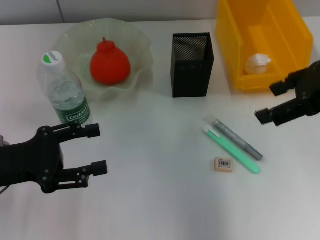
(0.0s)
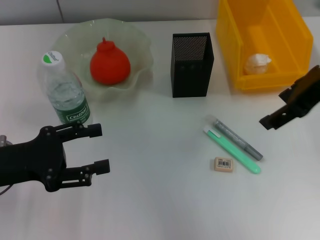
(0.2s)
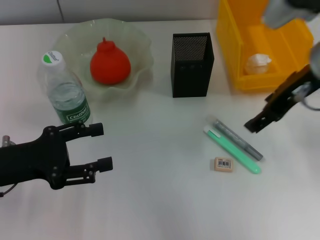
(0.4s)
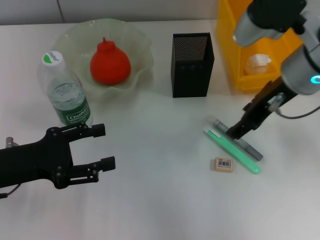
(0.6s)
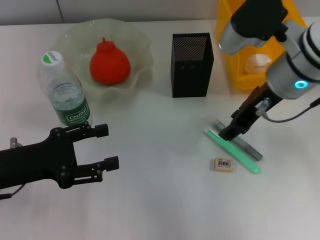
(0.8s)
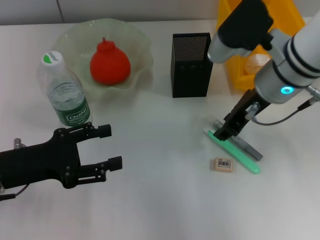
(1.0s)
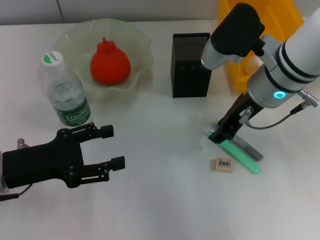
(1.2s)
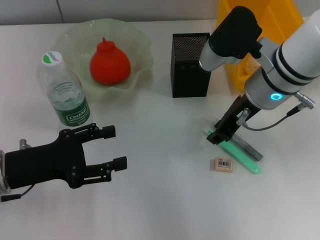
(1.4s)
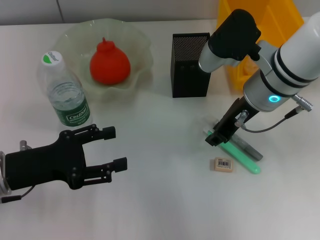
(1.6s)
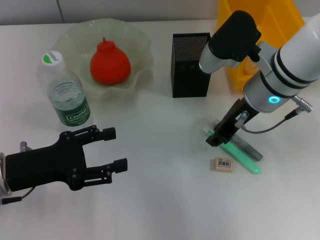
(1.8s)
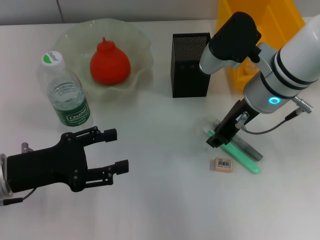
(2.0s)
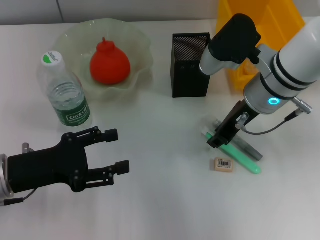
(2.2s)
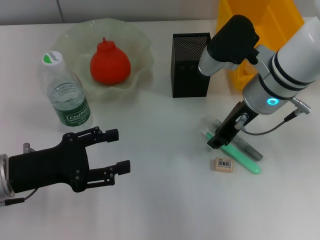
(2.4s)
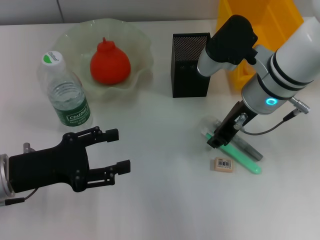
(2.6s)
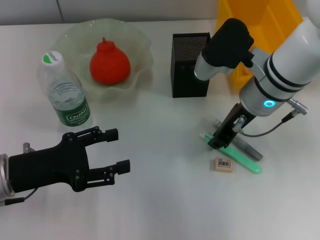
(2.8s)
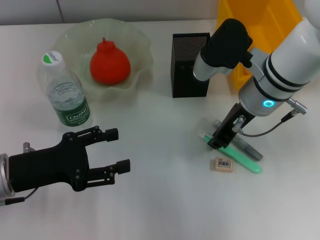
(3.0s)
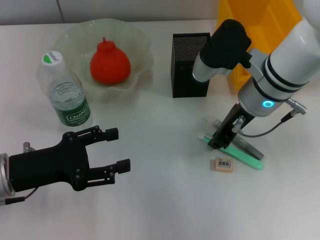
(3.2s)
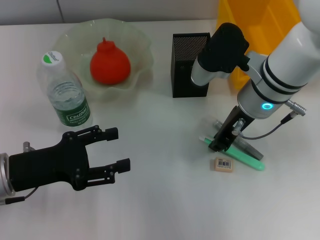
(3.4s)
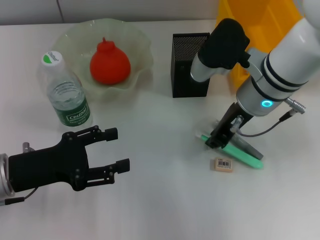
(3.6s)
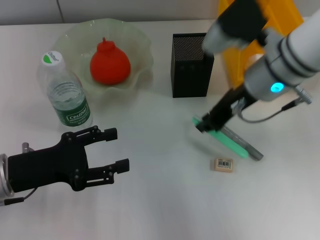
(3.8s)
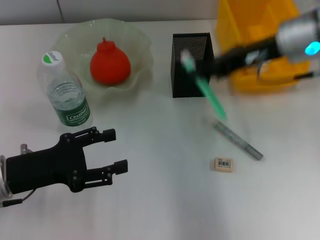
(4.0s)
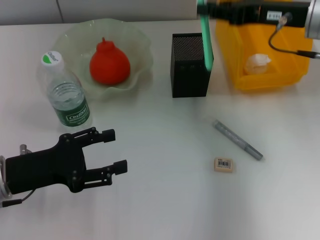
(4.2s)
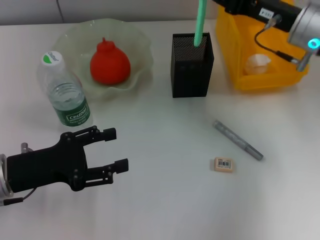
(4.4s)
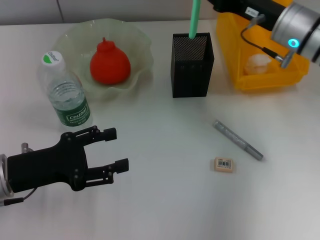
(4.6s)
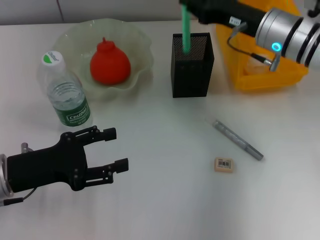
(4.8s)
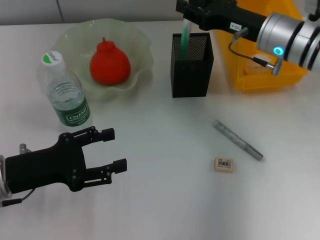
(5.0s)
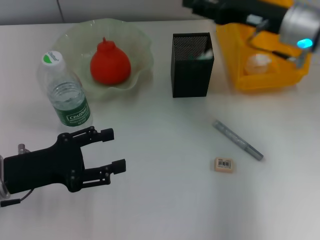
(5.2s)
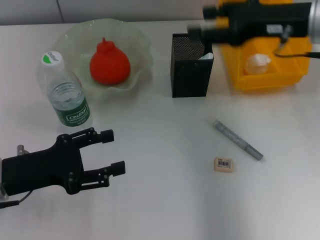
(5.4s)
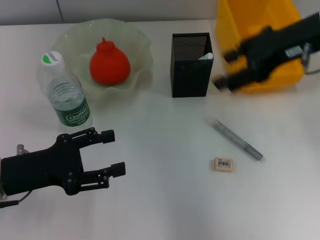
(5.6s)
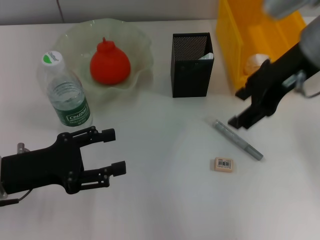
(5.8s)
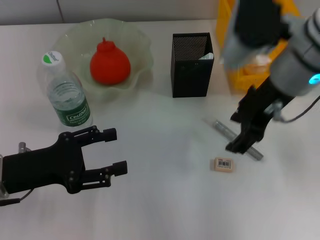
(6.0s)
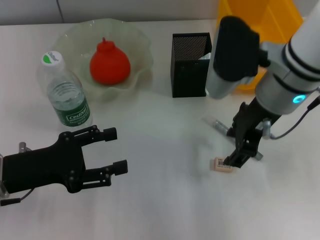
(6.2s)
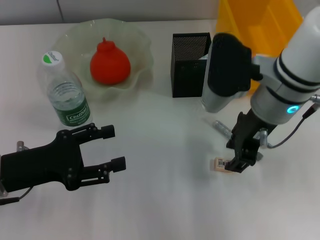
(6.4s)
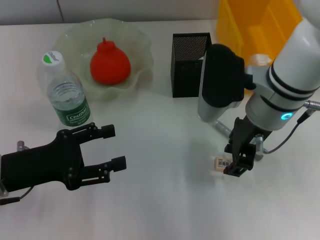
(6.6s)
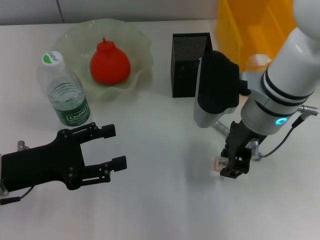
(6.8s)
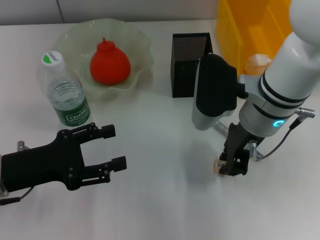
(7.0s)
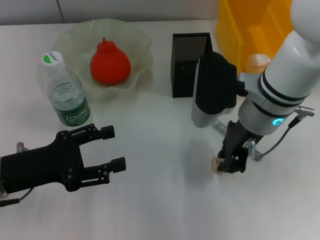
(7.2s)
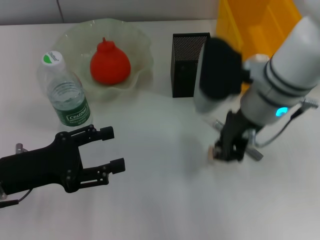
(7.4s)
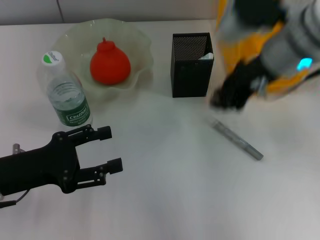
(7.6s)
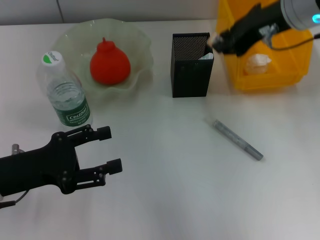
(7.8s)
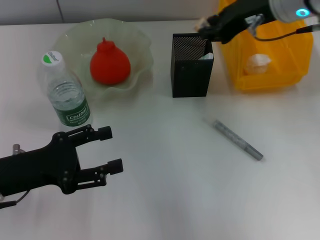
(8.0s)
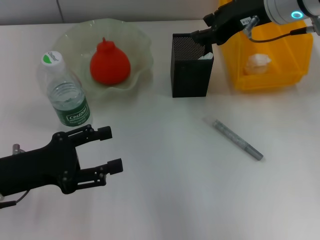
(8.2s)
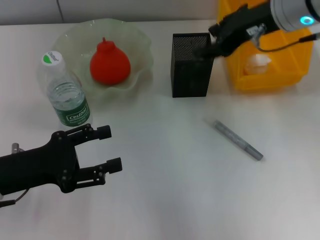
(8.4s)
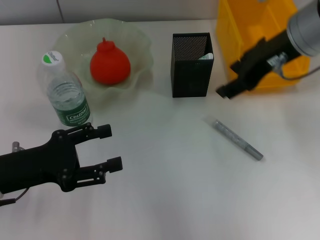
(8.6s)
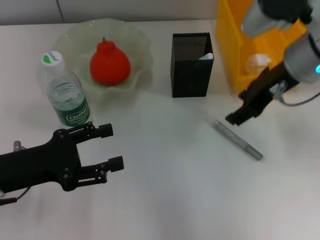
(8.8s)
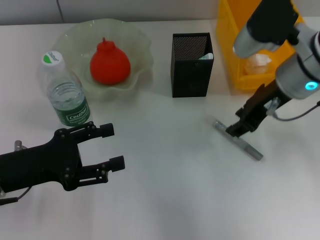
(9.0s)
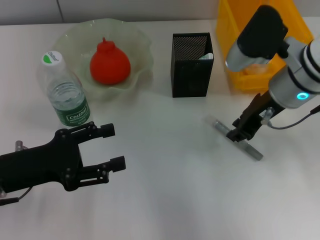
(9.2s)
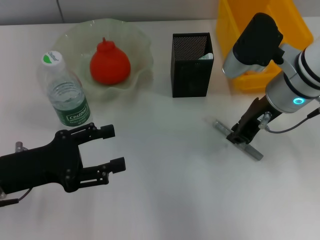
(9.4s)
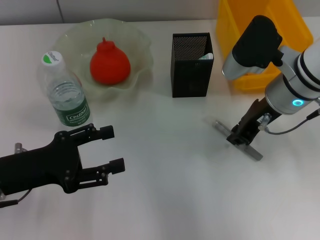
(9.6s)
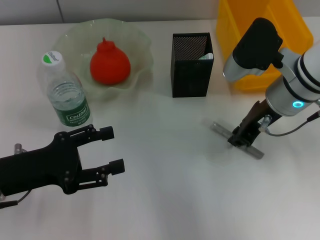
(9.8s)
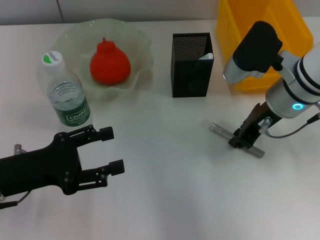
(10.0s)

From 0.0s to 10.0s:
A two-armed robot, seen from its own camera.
Step, from 0.0s to 3.2s: Grab the blue utility knife with the right hand.
Step, from 3.4s to 4.8s: Place the blue utility knife into the pen holder with the right hand.
Step, from 5.0s to 6.8s: Grab the eraser with the right hand.
Step, from 7.2s to 8.0s: Put the eraser into the pen holder with the right hand.
From 0.0s to 1.4s: The right gripper shifts some 15 cm to the left, downward and forward, and closes.
From 1.4s to 2.8s: There are only small adjustments of the grippers.
From 2.8s to 4.2s: The right gripper goes approximately 10 cm to the right and upward.
From 4.2s to 5.8s: The right gripper moves some 5 cm, and opens its fingers.
From 5.8s to 7.2s: The right gripper heads downward and to the left, covering approximately 10 cm, and closes.
From 7.2s to 8.6s: The right gripper goes some 10 cm upward and to the right, and opens up.
From 8.6s to 10.0s: The right gripper goes some 10 cm downward, and closes.

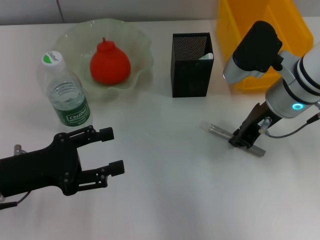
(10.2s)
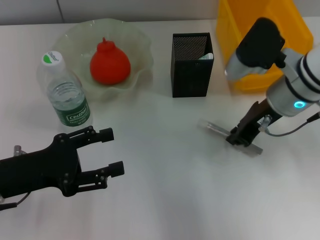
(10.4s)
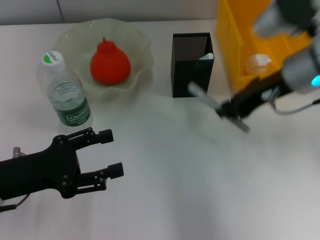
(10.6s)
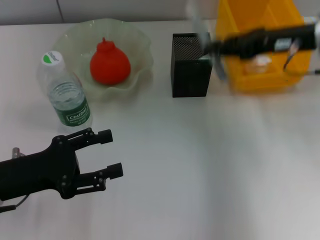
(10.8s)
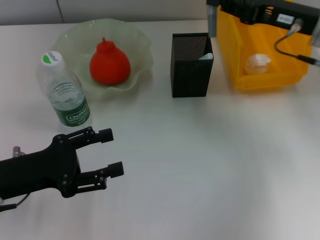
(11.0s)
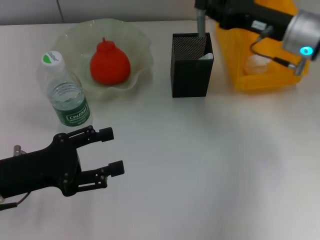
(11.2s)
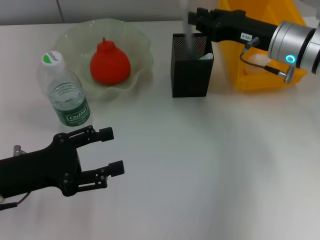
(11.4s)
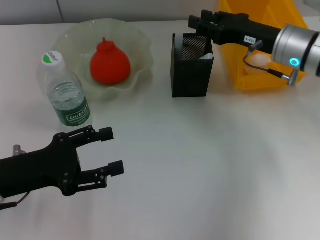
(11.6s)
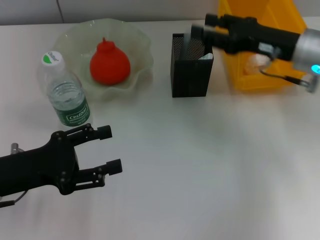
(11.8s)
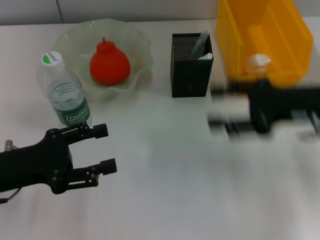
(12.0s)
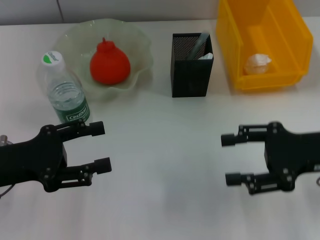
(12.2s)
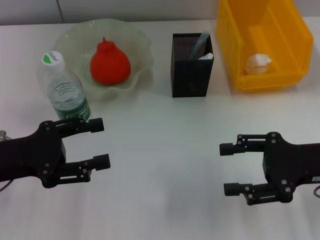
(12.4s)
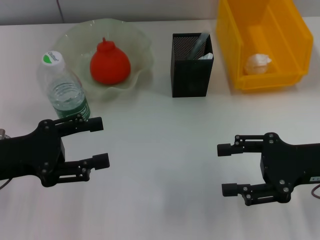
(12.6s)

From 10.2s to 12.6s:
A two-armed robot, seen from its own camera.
Step, from 10.4s to 11.4s: Place the gray glue into the pen holder with the right hand.
From 10.2s to 11.4s: The right gripper travels upward and back again, some 5 cm each way.
From 11.4s to 12.6s: The right gripper shifts about 15 cm backward and to the right, and opens.

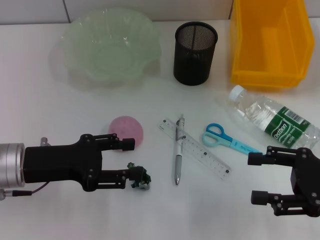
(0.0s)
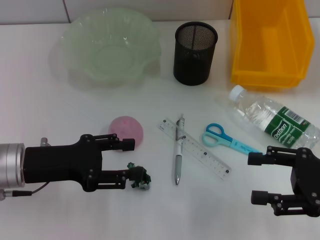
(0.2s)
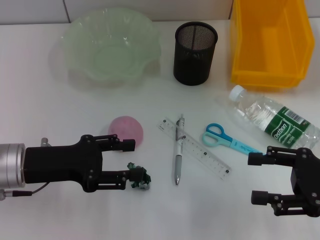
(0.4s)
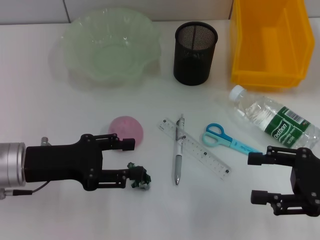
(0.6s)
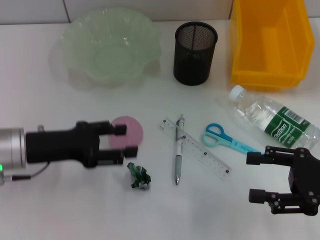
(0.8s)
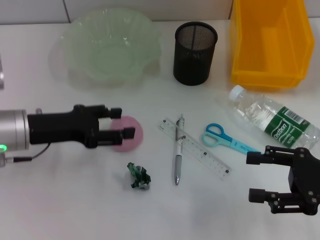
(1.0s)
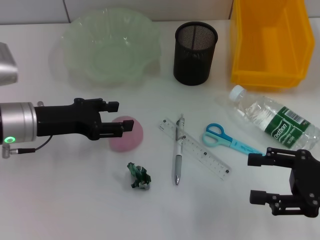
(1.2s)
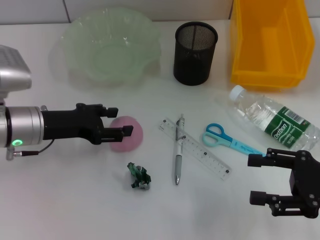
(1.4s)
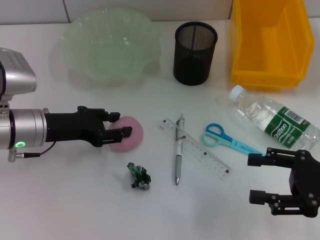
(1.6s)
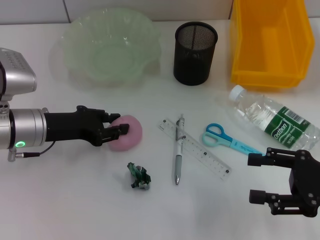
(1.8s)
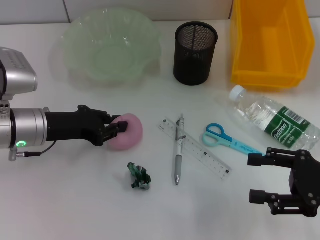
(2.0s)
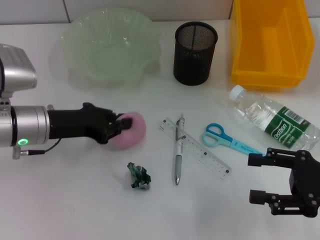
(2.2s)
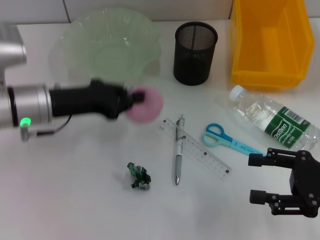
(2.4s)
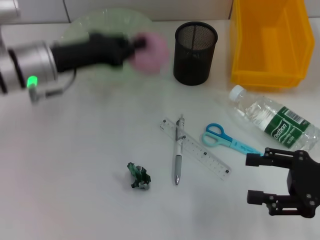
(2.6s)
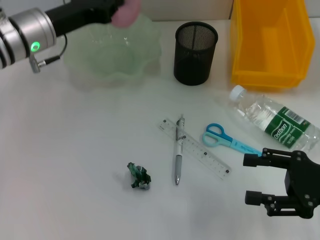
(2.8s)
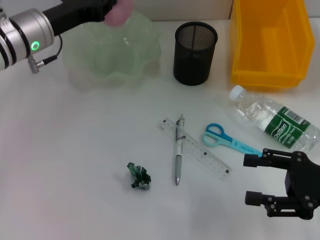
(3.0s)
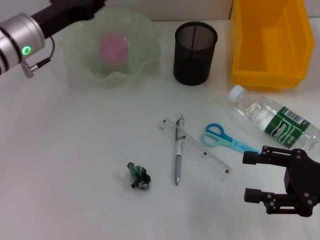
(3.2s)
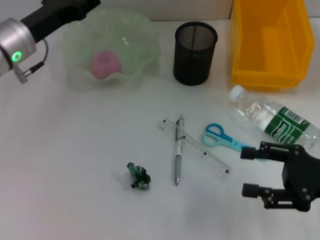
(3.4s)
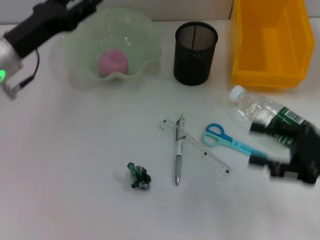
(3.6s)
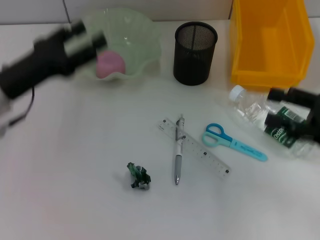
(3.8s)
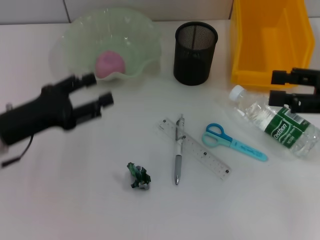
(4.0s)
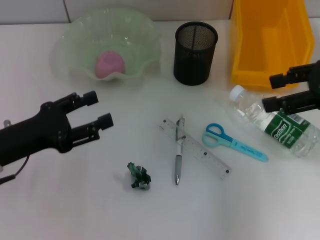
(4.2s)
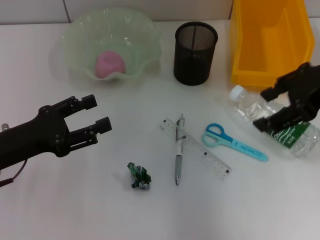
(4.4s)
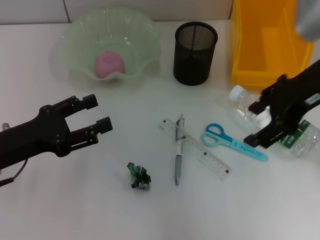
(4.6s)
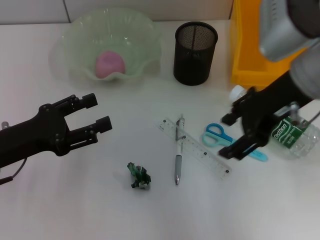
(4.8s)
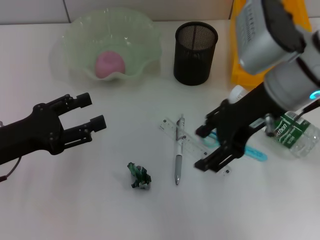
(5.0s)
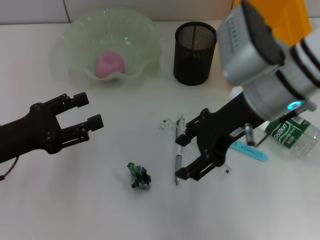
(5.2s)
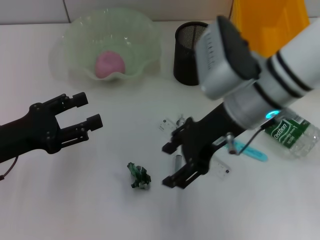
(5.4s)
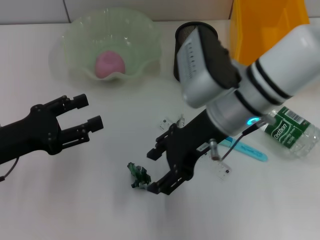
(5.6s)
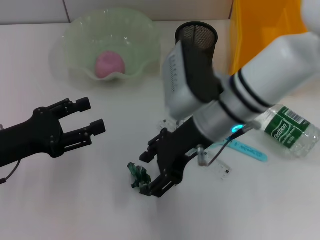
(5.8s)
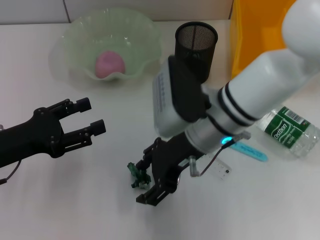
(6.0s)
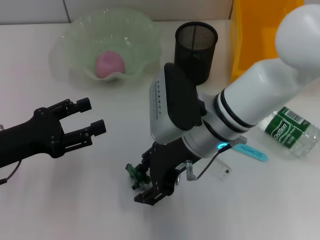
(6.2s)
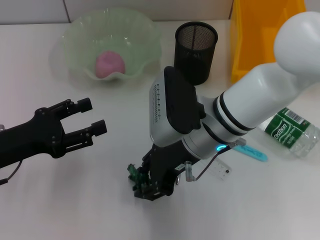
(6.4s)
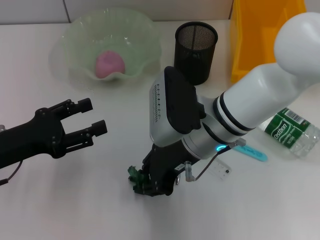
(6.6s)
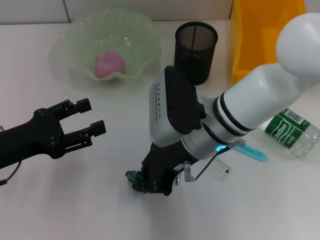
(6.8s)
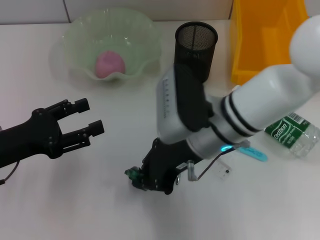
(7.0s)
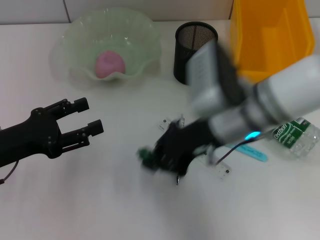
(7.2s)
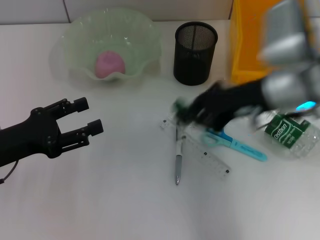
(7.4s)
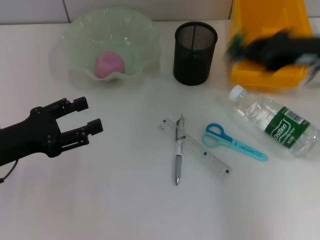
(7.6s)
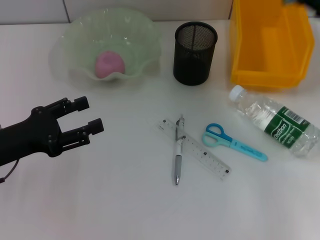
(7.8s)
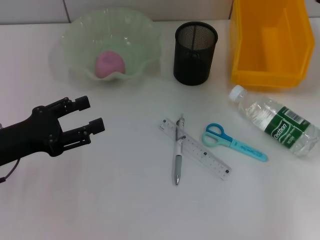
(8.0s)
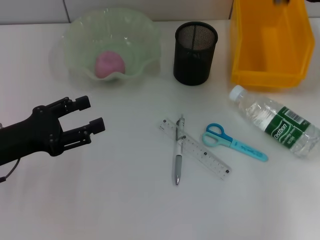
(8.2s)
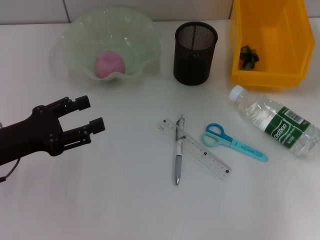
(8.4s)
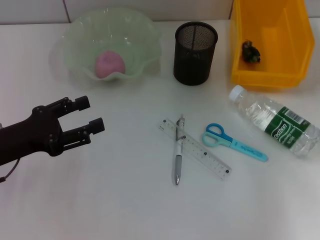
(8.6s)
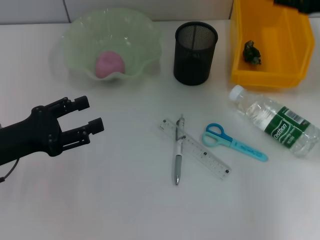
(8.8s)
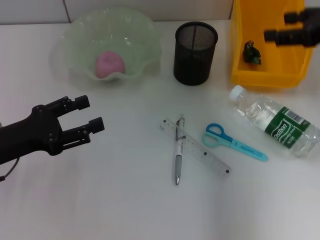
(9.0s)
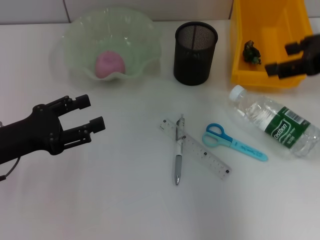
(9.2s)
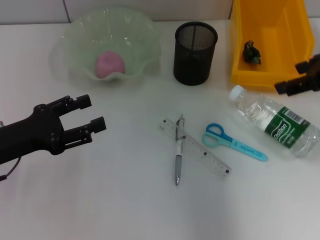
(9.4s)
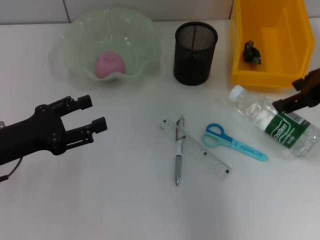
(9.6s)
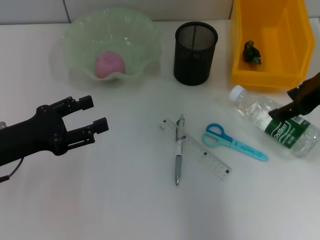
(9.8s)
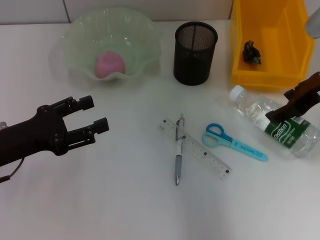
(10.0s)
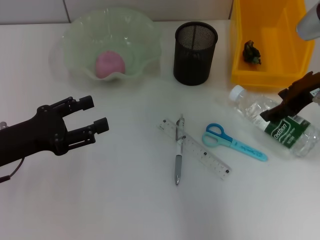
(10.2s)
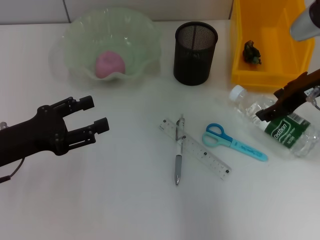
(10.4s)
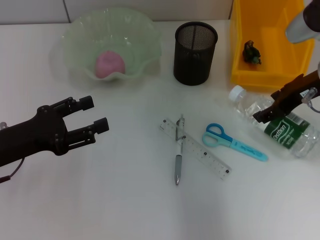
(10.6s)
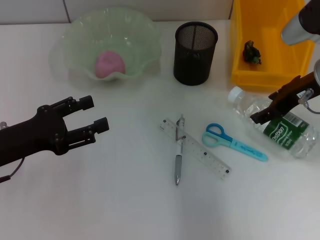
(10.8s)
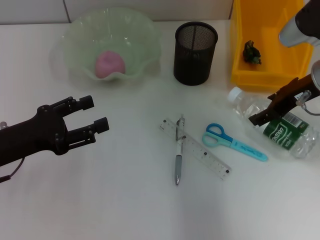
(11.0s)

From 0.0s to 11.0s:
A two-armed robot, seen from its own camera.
Step, from 0.0s to 1.8s: Grab the peach with the left hand.
Step, from 2.0s to 3.4s: Place the peach into the fruit bowl with the left hand.
Step, from 3.6s to 6.8s: Grab the plastic with the right hand.
Step, from 7.2s to 8.2s: Place the plastic into the trash can with the right hand.
From 0.0s to 1.6s: The left gripper moves forward, approximately 5 cm.
From 1.6s to 3.2s: The left gripper moves forward and upward, roughly 10 cm, and closes.
From 3.2s to 4.8s: The left gripper goes some 15 cm backward, and opens. Meanwhile the right gripper shifts some 20 cm upward, to the left and forward.
From 4.8s to 6.2s: The right gripper moves to the left and downward, approximately 15 cm.
From 6.2s to 7.8s: The right gripper is displaced to the right by roughly 25 cm, and closes.
From 7.8s to 9.4s: The right gripper ends up some 5 cm from where it was, and opens up.
From 9.4s to 11.0s: The right gripper shifts roughly 10 cm downward.
